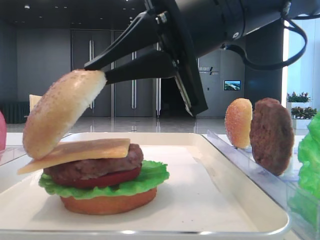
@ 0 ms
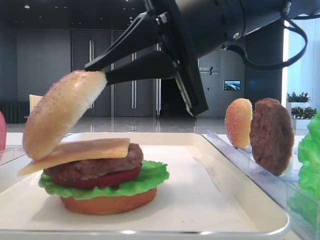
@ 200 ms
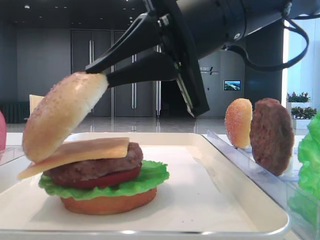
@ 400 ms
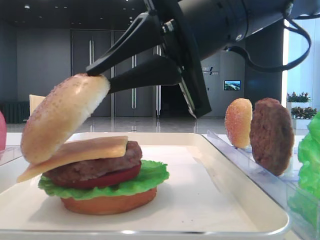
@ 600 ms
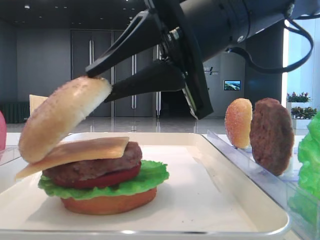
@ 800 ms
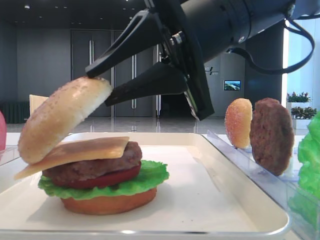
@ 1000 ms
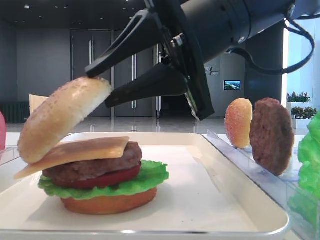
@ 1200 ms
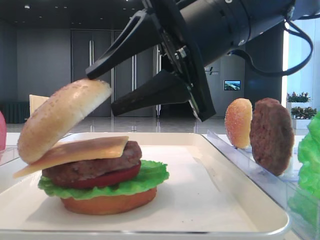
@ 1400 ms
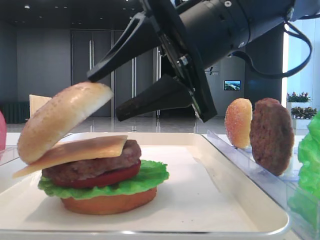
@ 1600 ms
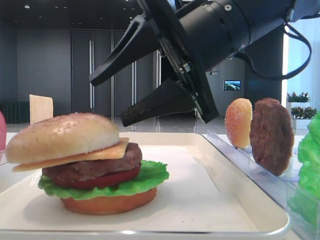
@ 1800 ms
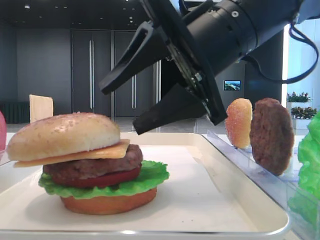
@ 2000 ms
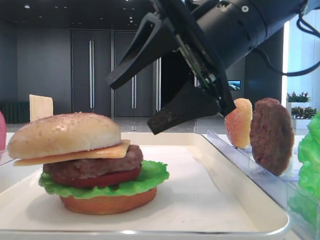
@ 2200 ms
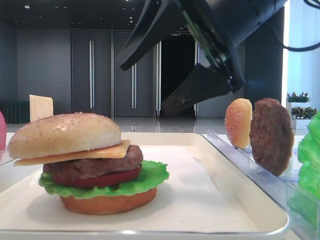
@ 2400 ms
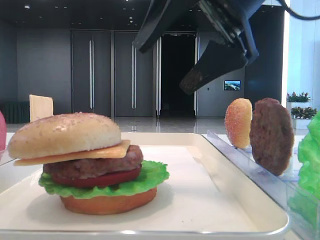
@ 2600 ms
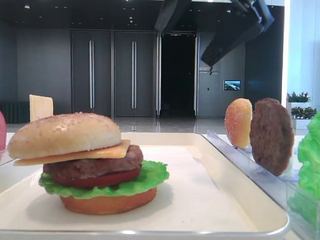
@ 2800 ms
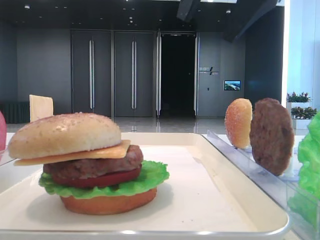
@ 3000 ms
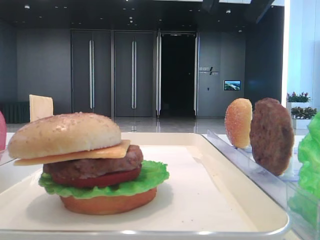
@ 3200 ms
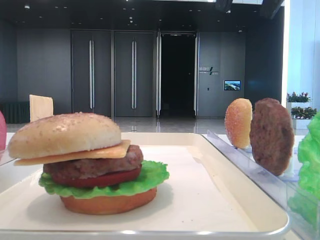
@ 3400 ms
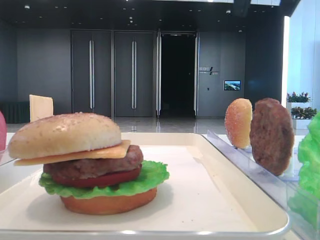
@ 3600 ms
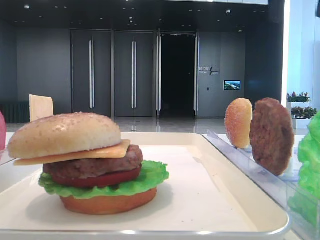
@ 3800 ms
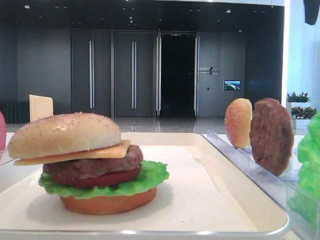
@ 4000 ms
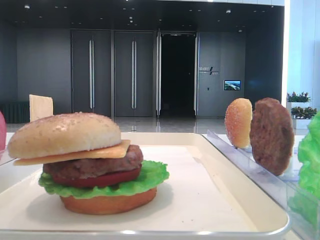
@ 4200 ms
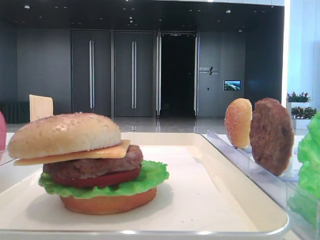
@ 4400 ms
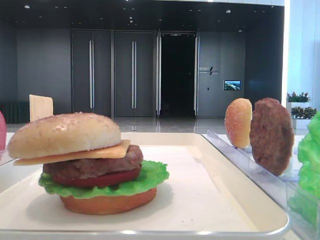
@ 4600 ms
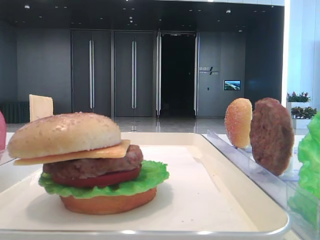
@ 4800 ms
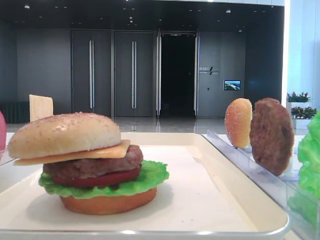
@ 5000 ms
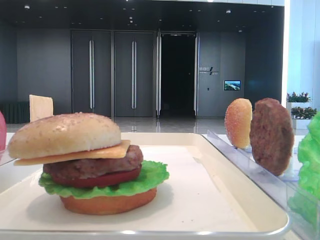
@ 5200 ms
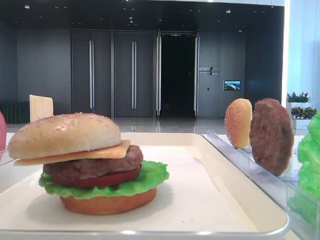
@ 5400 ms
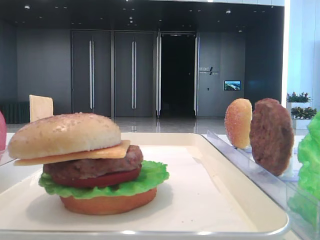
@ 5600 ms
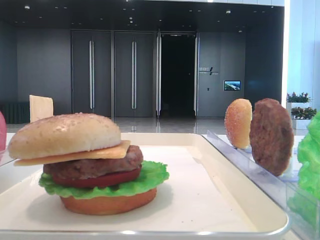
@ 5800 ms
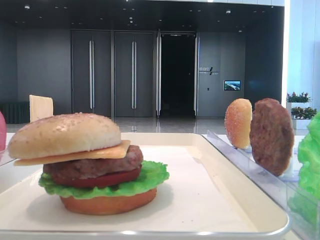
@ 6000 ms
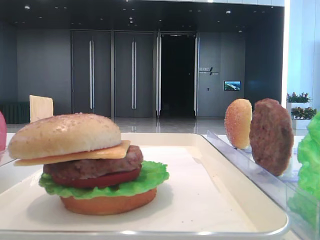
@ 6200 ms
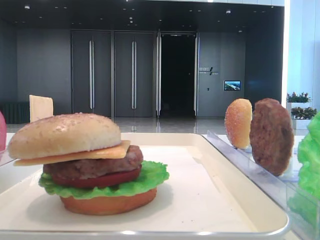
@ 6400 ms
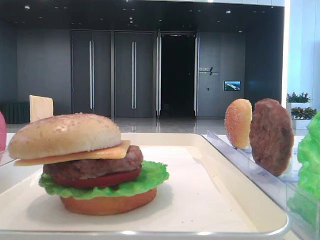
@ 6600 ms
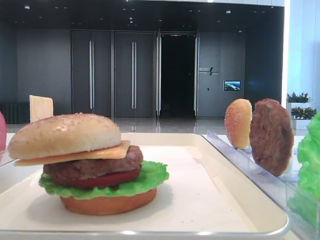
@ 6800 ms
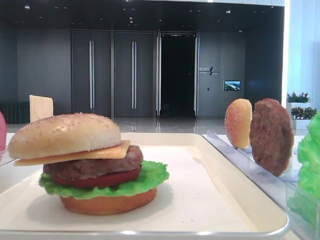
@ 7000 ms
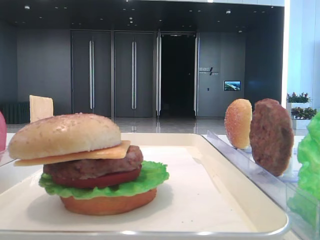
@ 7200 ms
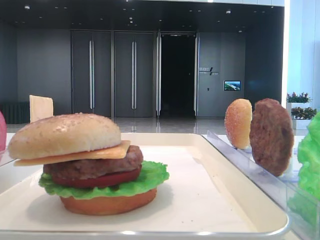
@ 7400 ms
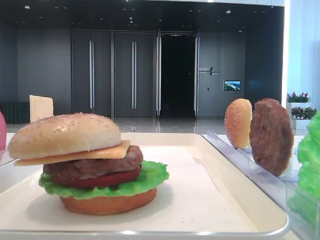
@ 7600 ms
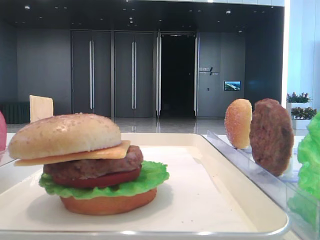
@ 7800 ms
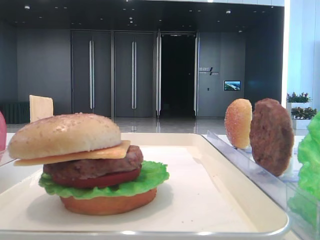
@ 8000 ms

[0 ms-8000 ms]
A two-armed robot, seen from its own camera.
0 ms to 1600 ms: The right gripper opens up.
1600 ms to 3200 ms: The right gripper travels upward and to the right by approximately 15 cm, and opens up.
